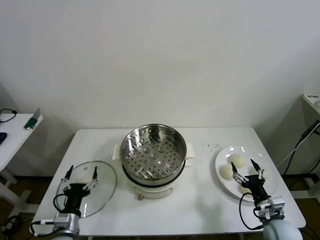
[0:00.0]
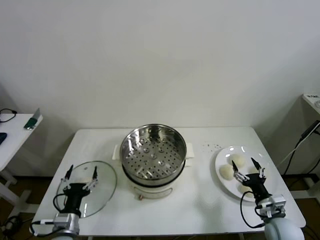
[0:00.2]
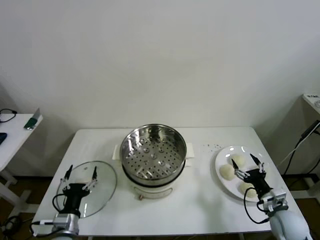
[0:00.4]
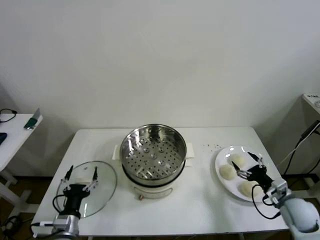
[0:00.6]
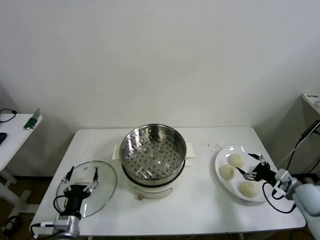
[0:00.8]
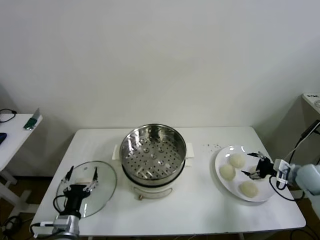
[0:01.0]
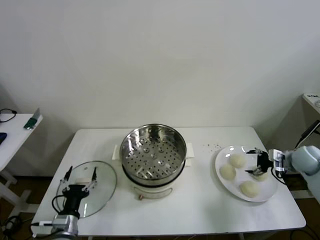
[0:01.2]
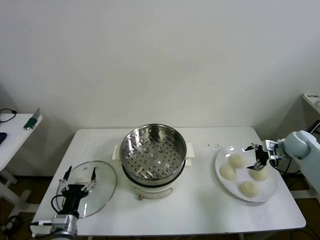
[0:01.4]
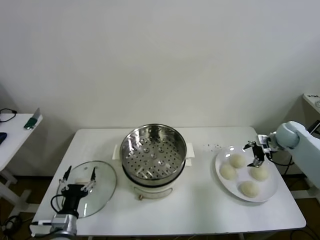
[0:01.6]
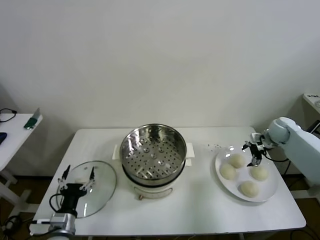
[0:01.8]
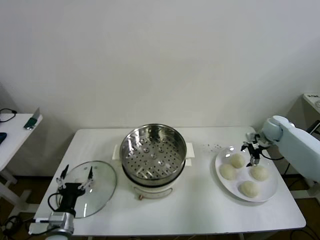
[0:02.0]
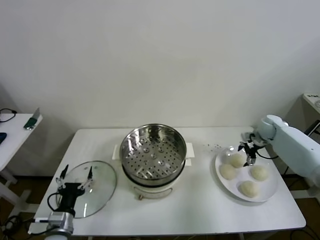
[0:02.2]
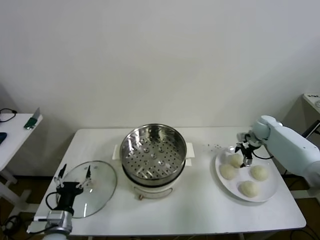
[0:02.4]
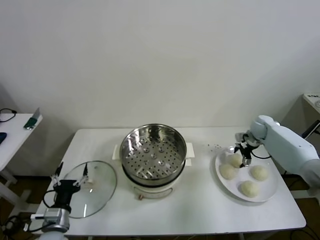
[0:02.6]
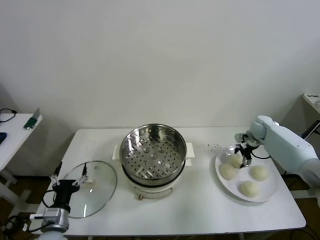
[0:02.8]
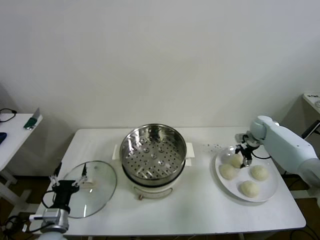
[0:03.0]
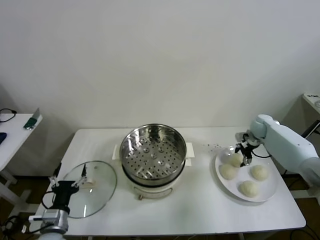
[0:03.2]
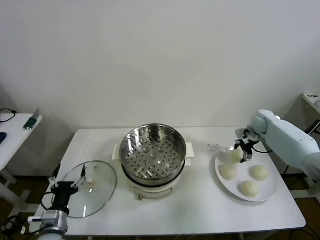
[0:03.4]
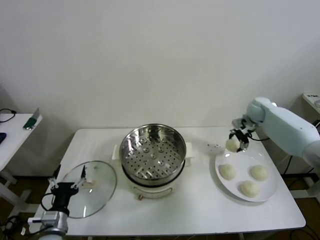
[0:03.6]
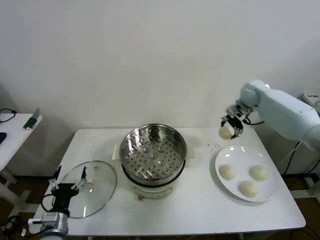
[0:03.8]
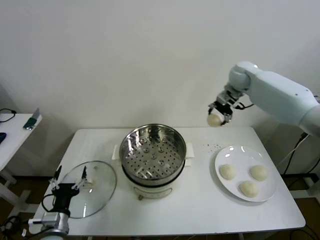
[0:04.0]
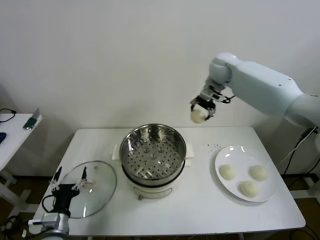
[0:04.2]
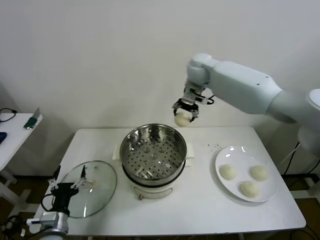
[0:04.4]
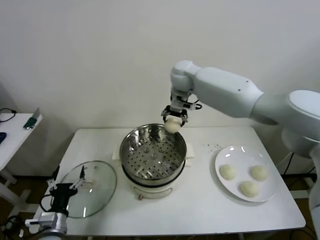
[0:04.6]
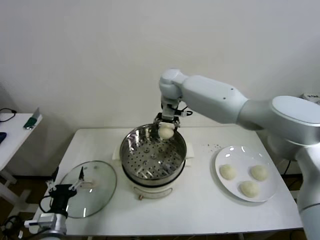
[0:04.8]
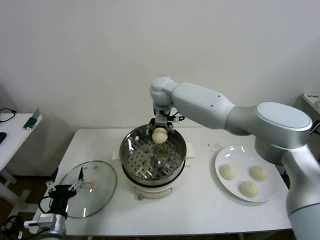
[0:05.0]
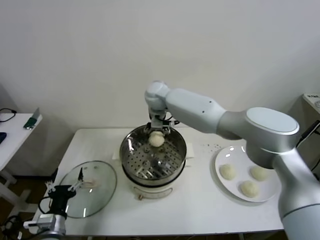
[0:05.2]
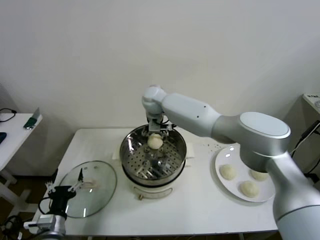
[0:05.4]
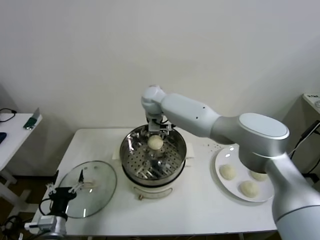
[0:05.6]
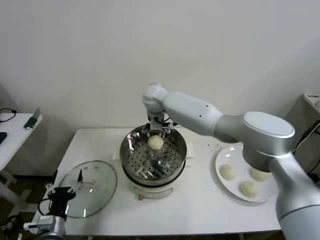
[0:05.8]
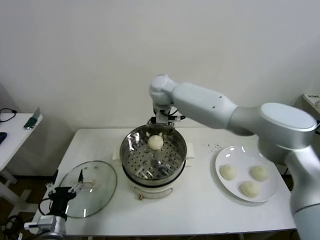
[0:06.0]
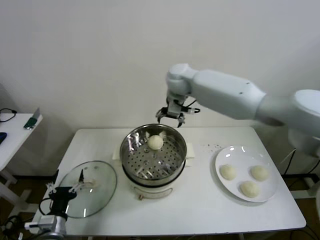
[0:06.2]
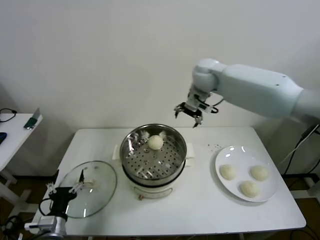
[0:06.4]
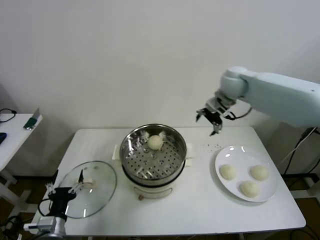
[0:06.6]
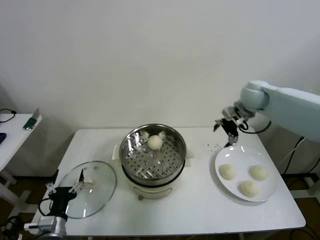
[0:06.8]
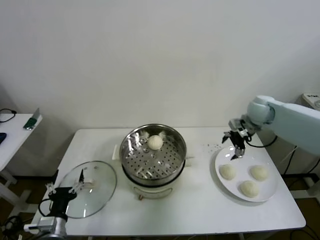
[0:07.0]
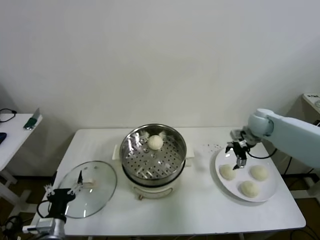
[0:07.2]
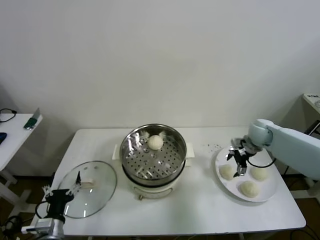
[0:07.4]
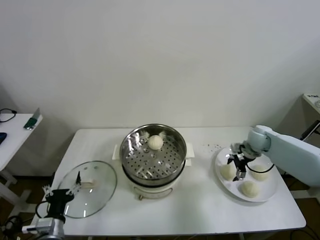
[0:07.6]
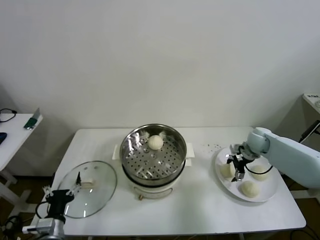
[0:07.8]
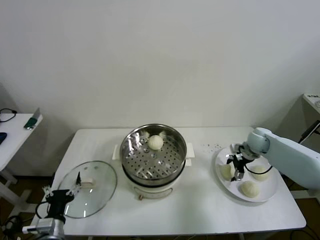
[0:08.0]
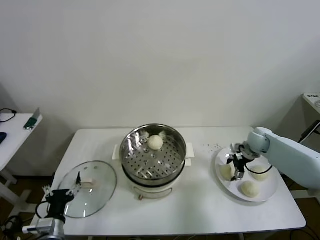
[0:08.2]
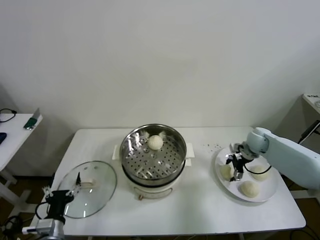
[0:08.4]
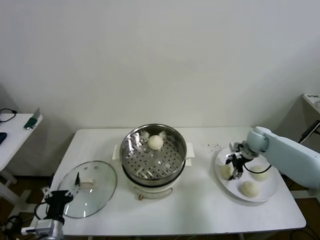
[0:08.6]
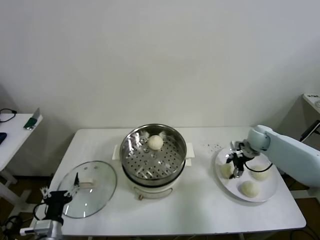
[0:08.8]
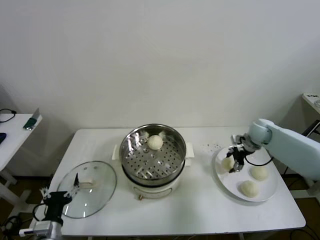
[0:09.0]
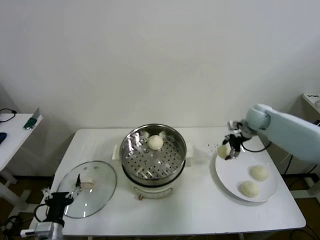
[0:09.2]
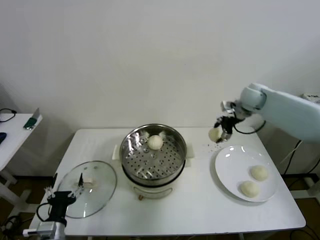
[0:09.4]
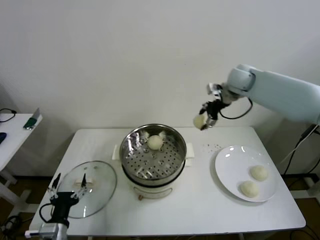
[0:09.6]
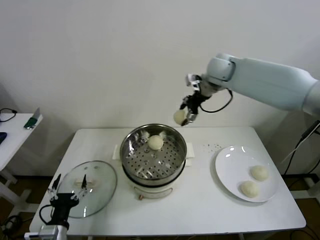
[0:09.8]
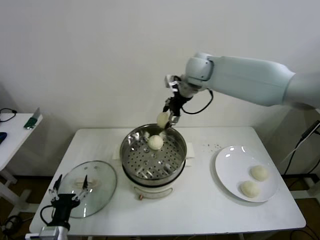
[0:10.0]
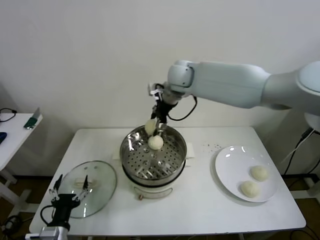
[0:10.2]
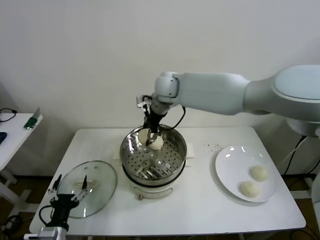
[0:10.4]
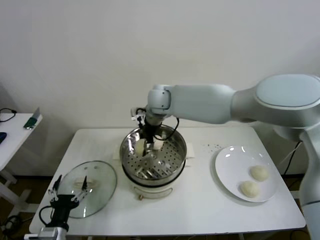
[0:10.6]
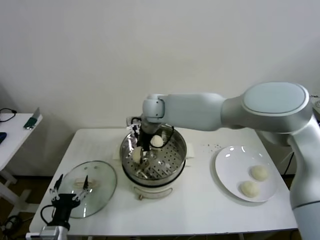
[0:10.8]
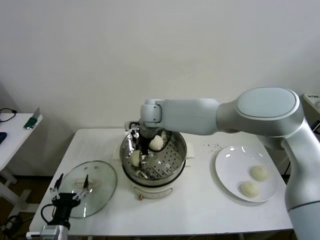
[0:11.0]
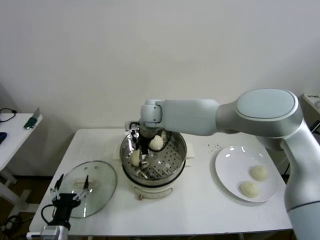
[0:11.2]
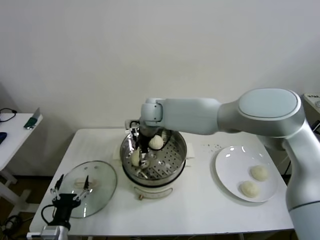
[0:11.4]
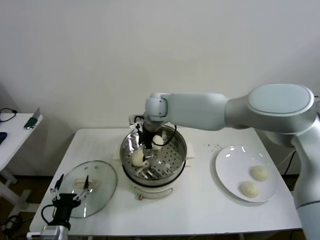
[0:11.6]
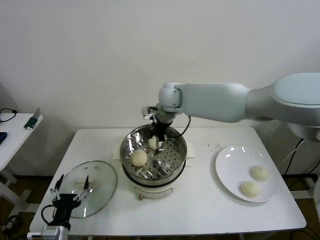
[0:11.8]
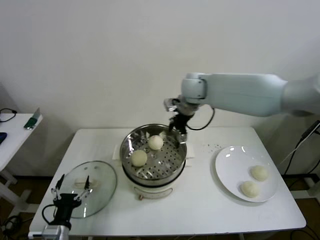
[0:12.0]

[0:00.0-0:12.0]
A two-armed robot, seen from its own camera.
Step, 0:00.0 to 0:02.8: Grasp the baozi in the plate with right gripper.
Step, 0:03.0 to 0:06.0: Place the baozi on the steamer with right gripper.
Step, 0:06.2 to 0:08.6: Grasp the baozi in the plate with right gripper.
Step, 0:08.8 to 0:11.6: Place the baozi on the steamer with right gripper.
0:01.6 to 0:03.0: The right gripper moves forward, about 5 cm.
0:03.0 to 0:04.4: The right gripper shifts approximately 40 cm to the left and upward.
0:04.4 to 0:06.0: The right gripper shifts approximately 5 cm to the left.
0:06.0 to 0:07.6: The right gripper heads to the right and downward, covering approximately 40 cm.
0:07.6 to 0:09.0: The right gripper moves some 5 cm.
0:09.0 to 0:10.4: The right gripper shifts about 40 cm to the left and upward.
0:10.4 to 0:12.0: The right gripper heads to the right, covering roughly 10 cm.

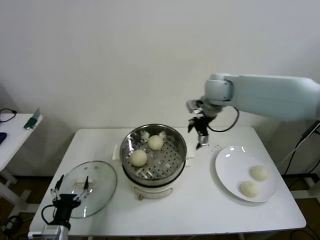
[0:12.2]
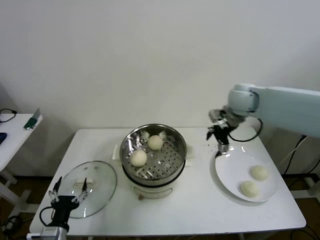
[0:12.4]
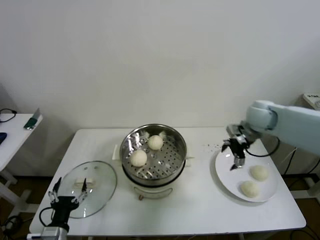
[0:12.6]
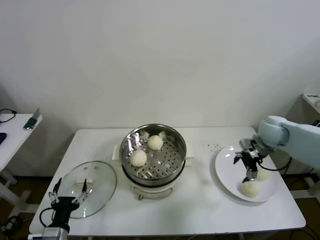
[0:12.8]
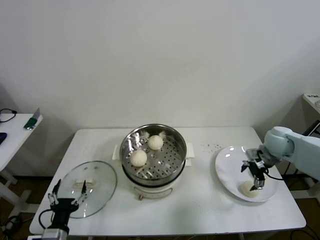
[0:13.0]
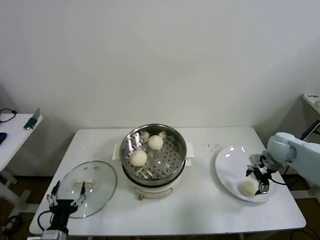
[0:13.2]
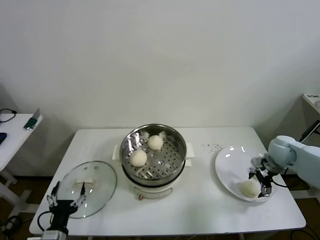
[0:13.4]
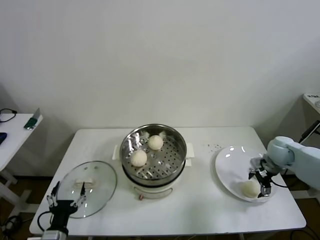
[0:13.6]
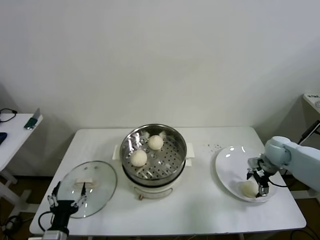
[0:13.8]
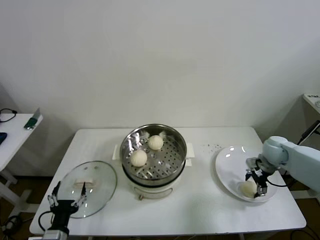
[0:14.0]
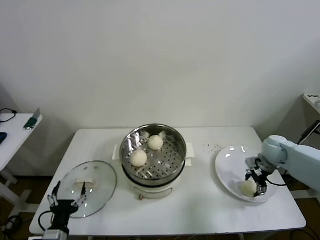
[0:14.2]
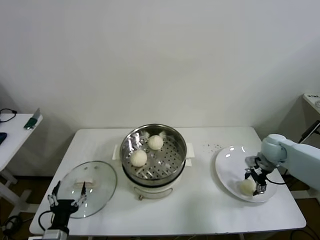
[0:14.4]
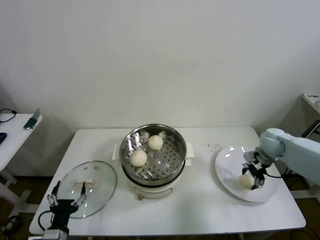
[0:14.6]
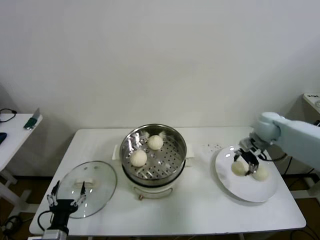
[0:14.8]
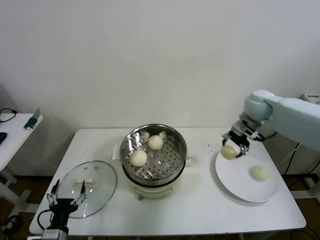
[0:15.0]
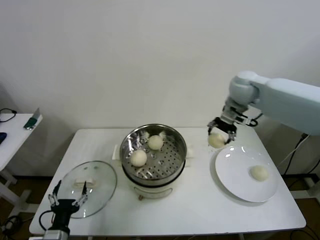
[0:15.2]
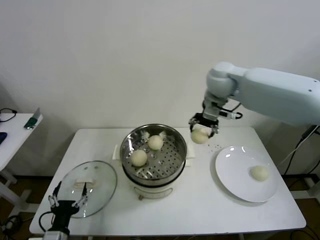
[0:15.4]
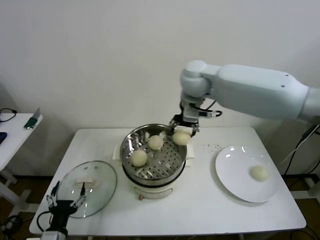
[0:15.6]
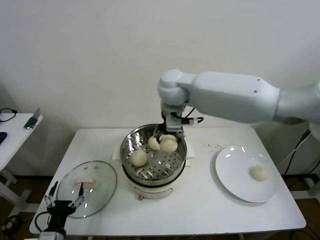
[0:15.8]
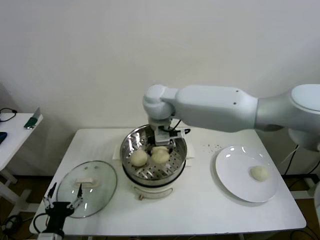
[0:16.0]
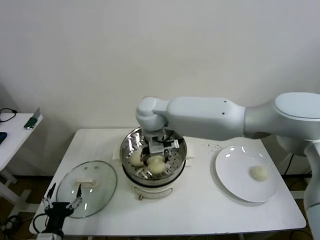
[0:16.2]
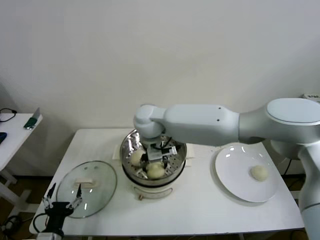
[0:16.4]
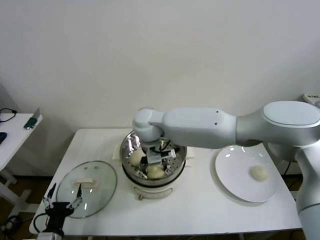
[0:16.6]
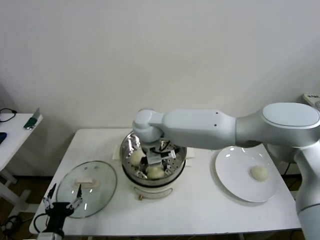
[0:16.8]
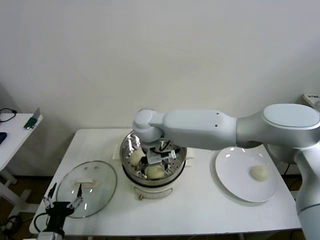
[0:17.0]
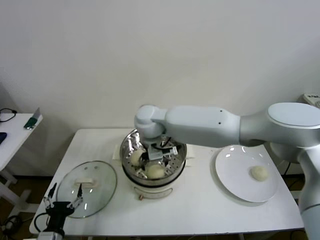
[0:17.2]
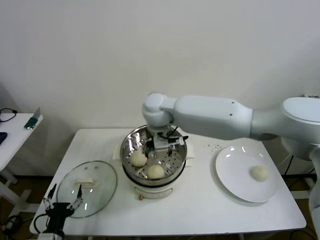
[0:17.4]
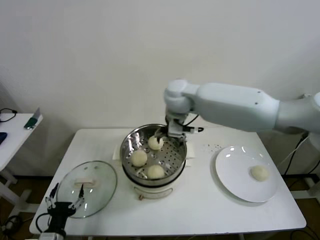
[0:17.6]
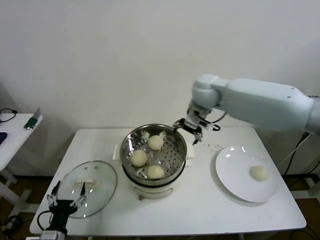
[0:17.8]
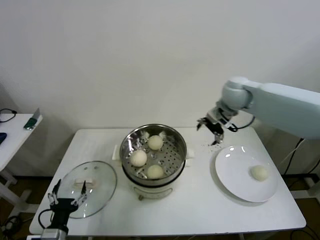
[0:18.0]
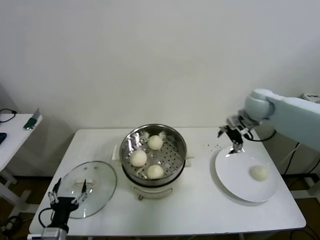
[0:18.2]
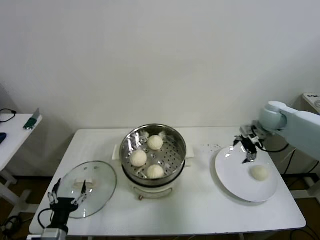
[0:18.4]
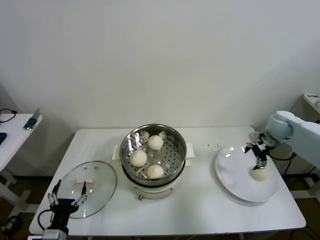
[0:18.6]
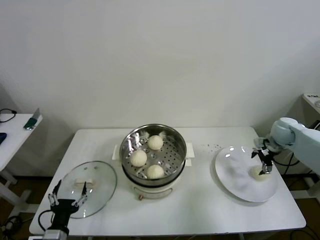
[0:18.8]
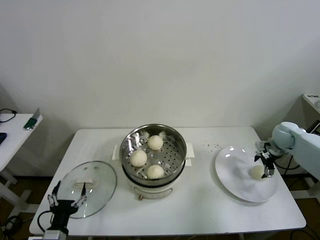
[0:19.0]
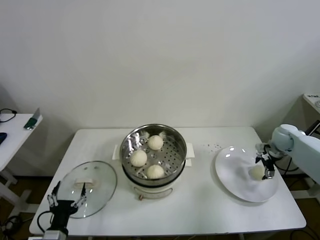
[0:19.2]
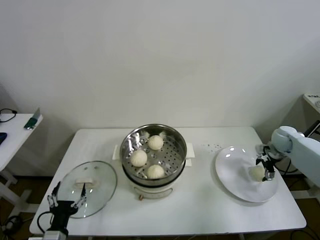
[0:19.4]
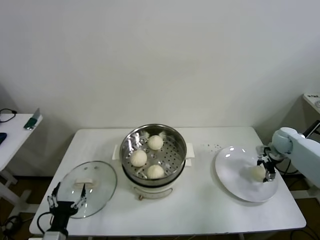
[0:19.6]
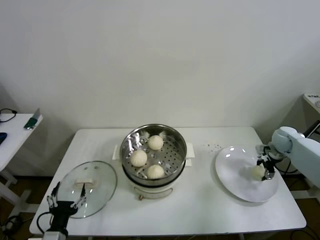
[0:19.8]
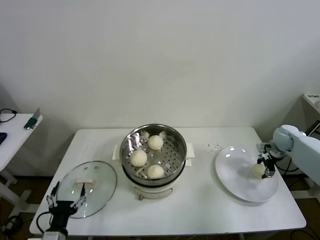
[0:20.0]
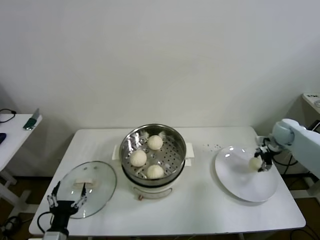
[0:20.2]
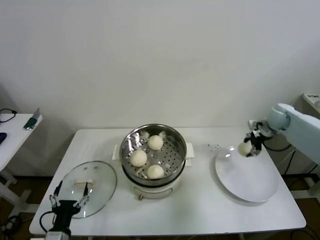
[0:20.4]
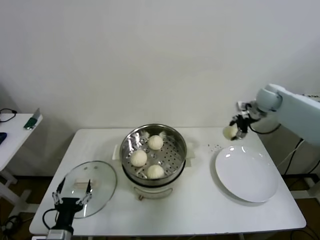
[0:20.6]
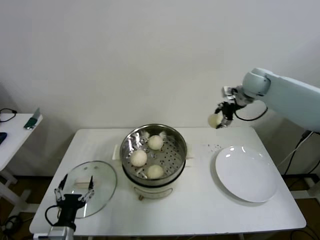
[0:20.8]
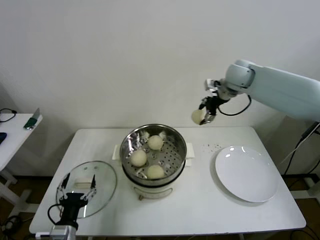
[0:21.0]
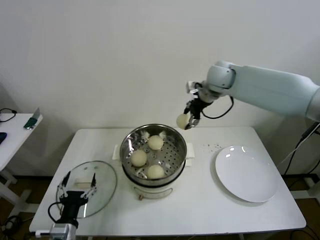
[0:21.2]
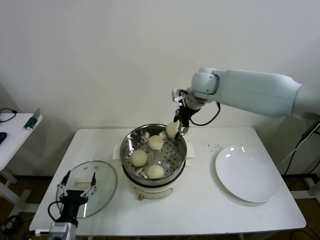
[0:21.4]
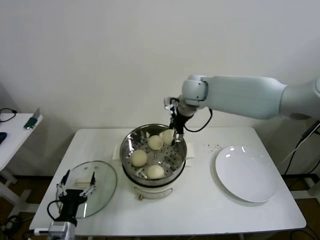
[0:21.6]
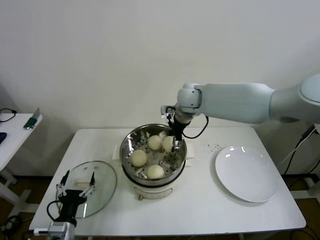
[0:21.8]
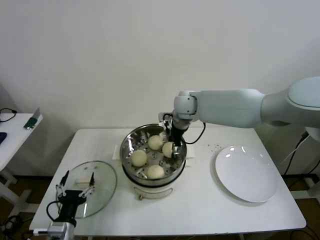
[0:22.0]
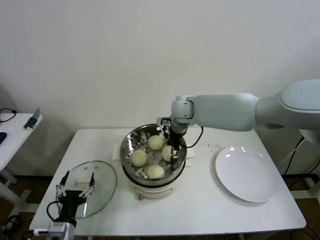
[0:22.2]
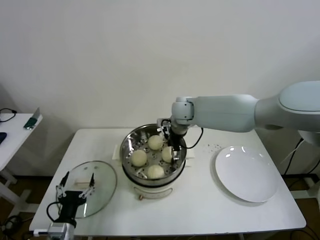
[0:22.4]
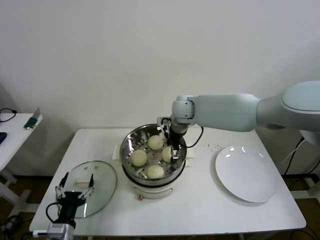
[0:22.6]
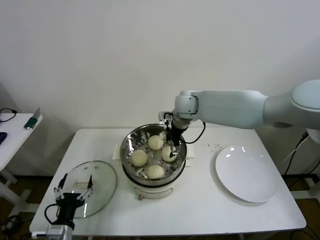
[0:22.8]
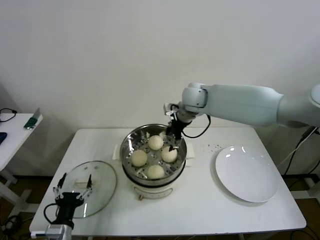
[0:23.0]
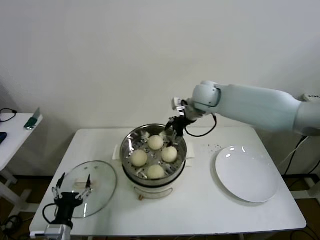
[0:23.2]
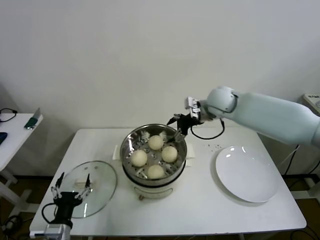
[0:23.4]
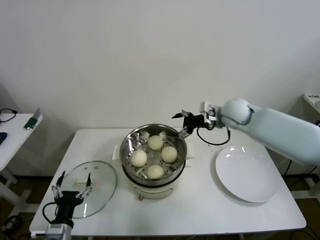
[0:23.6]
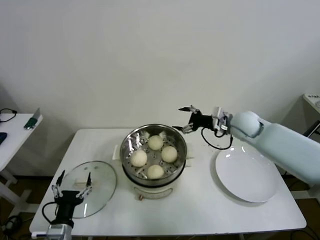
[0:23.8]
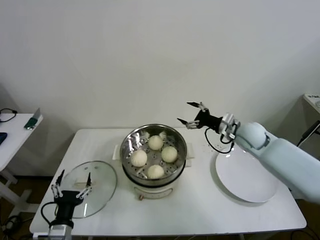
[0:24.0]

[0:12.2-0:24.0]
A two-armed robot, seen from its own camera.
Step, 0:12.2 to 0:14.0: Grasp the baozi in the plate with right gripper.
Step, 0:14.2 to 0:17.2: Place the baozi on the steamer with right gripper.
Step, 0:17.4 to 0:19.8: Grasp the baozi in the plate with right gripper.
Step, 0:20.0 to 0:23.0: Place the baozi on the steamer with right gripper.
0:12.2 to 0:13.6: The right gripper heads to the right and downward, covering some 30 cm.
0:13.6 to 0:15.2: The right gripper shifts about 30 cm upward and to the left.
0:15.2 to 0:16.6: The right gripper is displaced to the left by about 30 cm.
0:16.6 to 0:18.2: The right gripper travels to the right by about 35 cm.
0:18.2 to 0:19.6: The right gripper heads downward and to the right, covering approximately 20 cm.
0:19.6 to 0:21.0: The right gripper shifts roughly 35 cm upward and to the left.
0:21.0 to 0:22.6: The right gripper heads to the left and downward, covering roughly 20 cm.
0:22.6 to 0:24.0: The right gripper moves to the right, some 20 cm.
